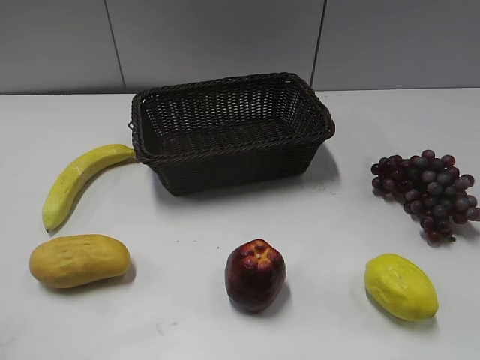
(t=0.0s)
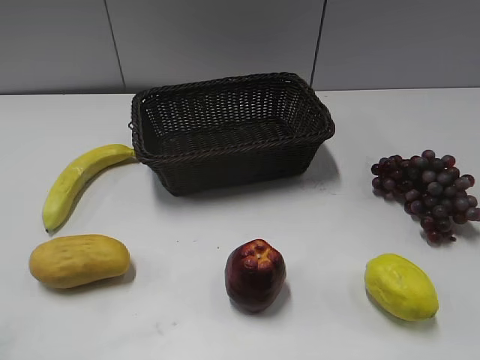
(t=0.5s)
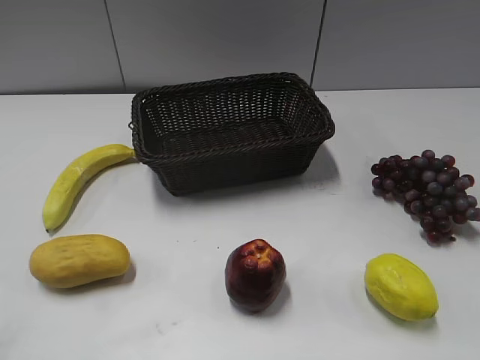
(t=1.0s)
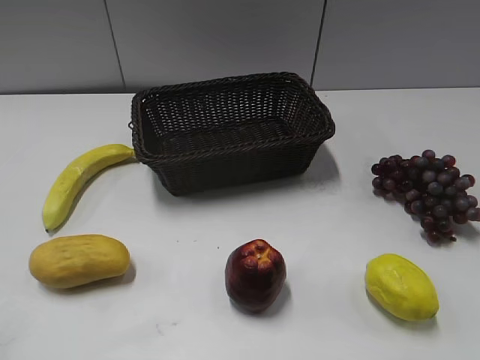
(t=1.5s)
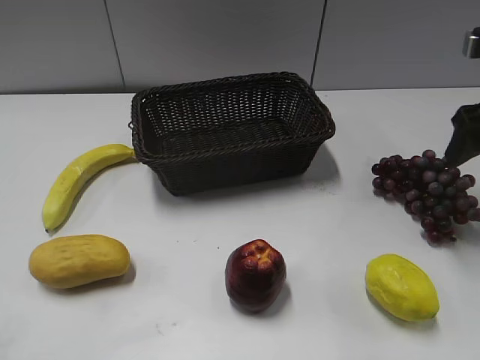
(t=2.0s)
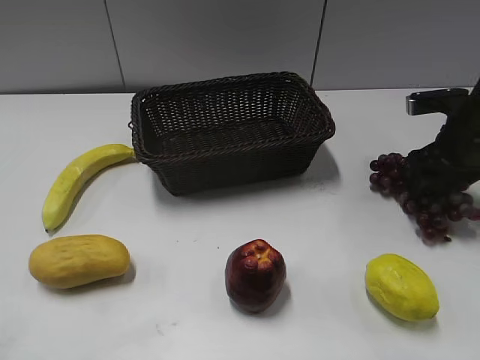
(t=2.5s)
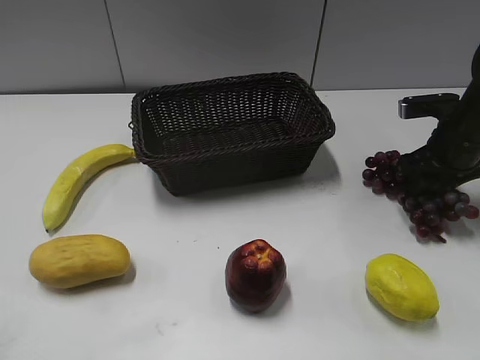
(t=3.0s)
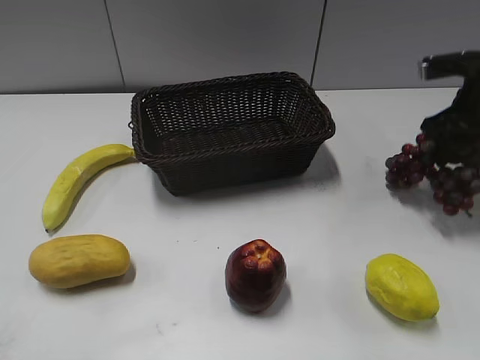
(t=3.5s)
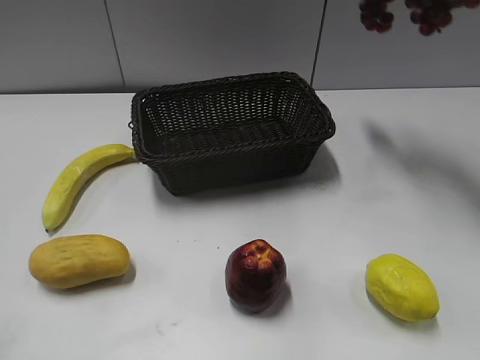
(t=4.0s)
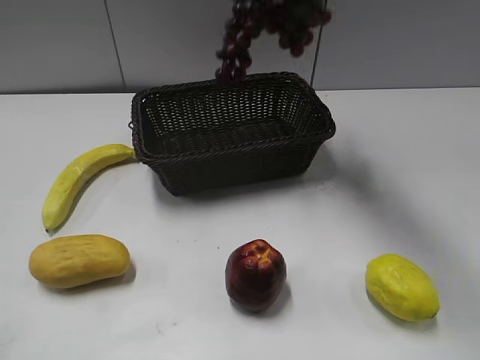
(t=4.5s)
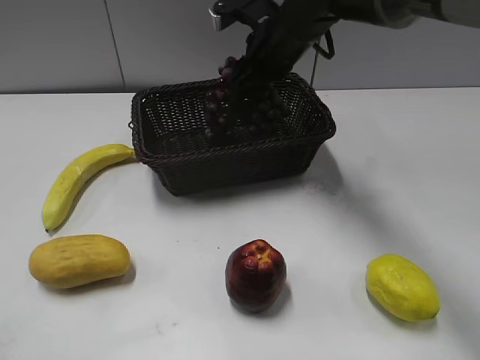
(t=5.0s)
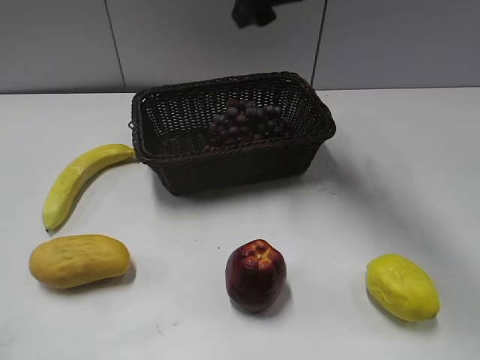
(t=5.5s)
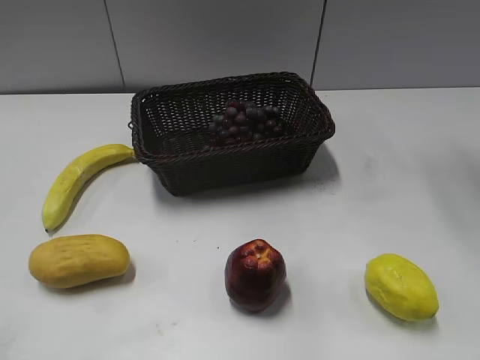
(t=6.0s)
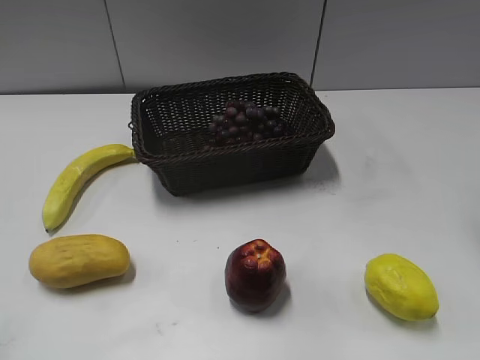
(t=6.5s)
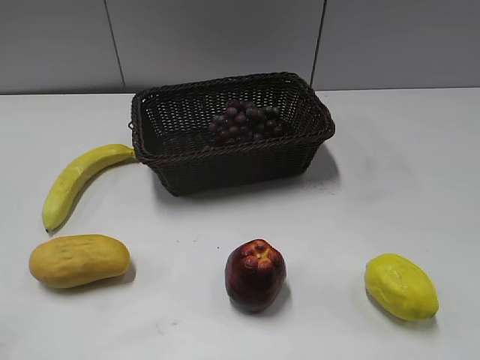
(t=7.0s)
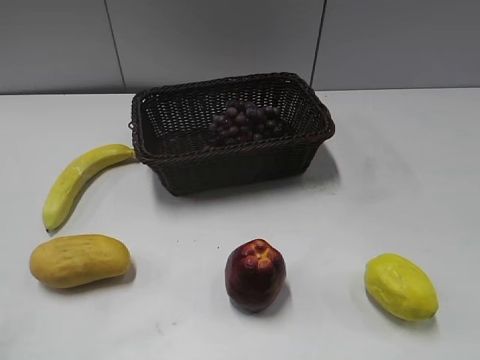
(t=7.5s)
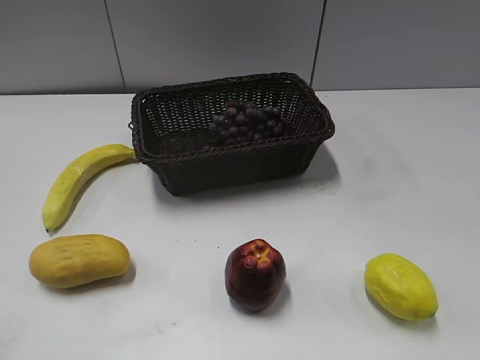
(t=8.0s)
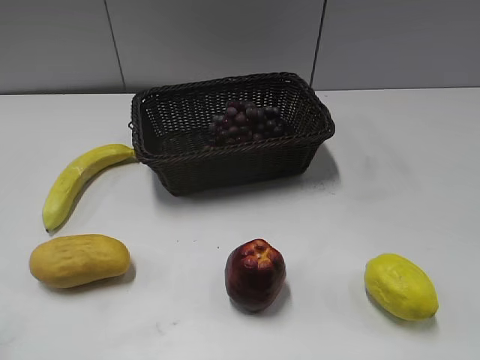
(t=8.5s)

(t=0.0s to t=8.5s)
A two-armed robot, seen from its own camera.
Step, t=2.0s - t=2.5s: Grasp the grape with right gripper.
Step, t=3.0s - t=5.0s: Place the grape in the basket with right gripper.
t=2.0s - t=4.0s: The right gripper moves upward, forward and to the left, approximately 20 cm, and closes its fingers.
t=4.0s - t=6.5s: The right gripper goes roughly 15 cm backward, goes to the left and returns, some 15 cm each way, and opens up.
